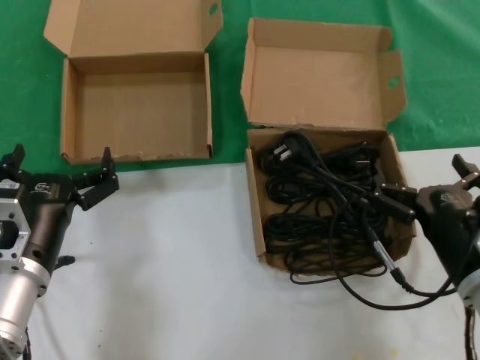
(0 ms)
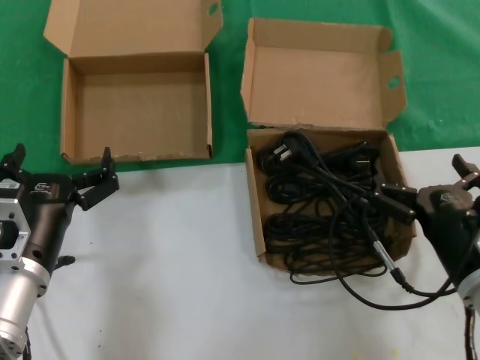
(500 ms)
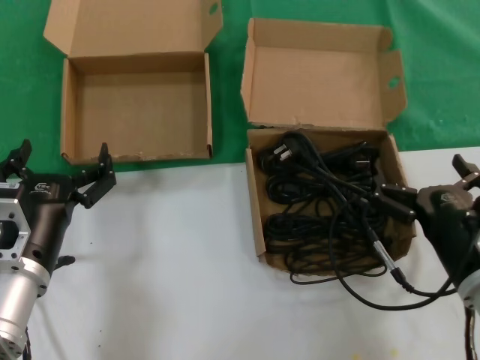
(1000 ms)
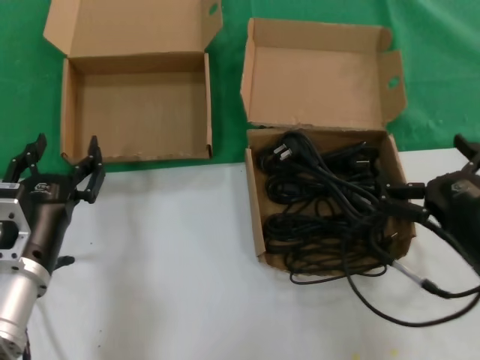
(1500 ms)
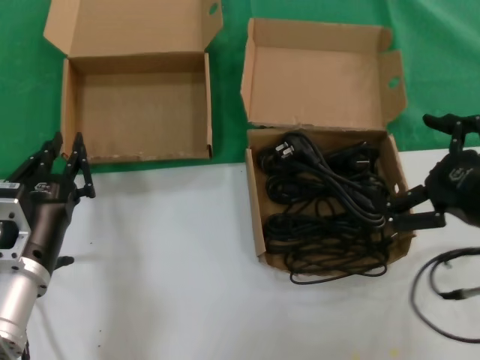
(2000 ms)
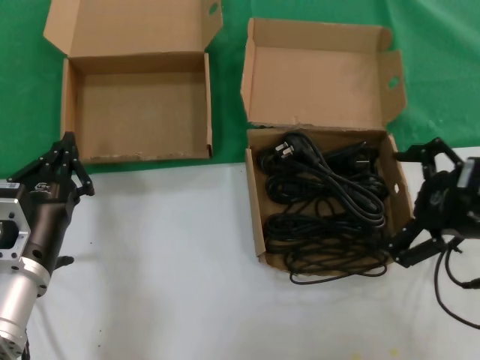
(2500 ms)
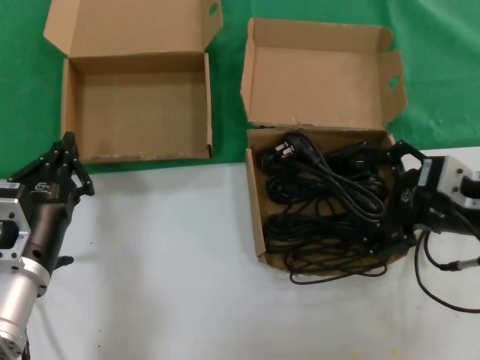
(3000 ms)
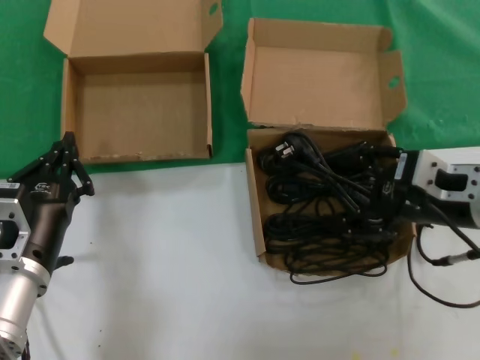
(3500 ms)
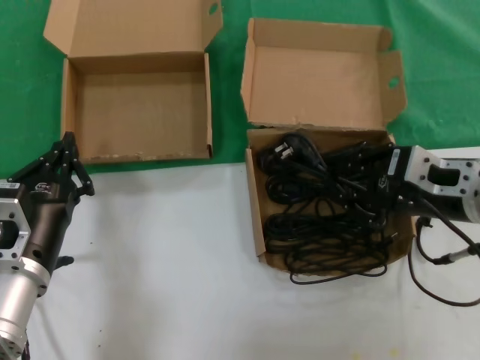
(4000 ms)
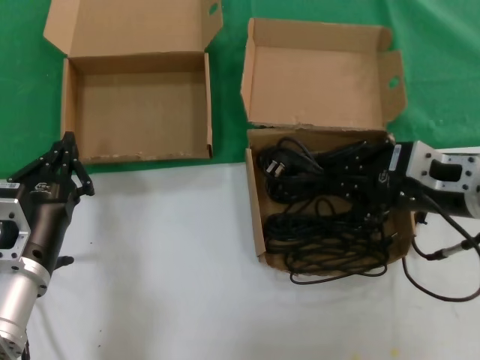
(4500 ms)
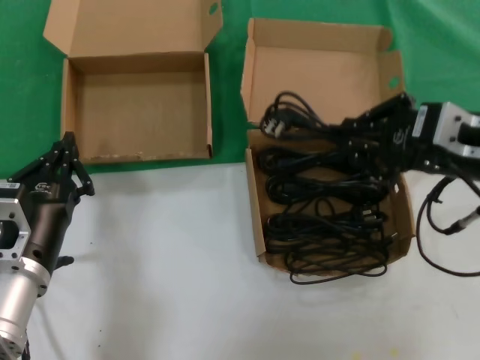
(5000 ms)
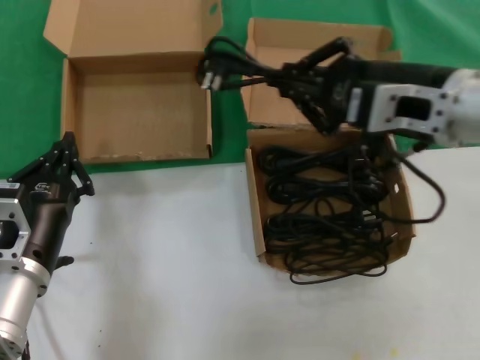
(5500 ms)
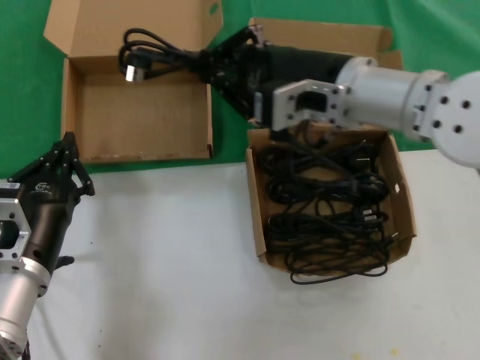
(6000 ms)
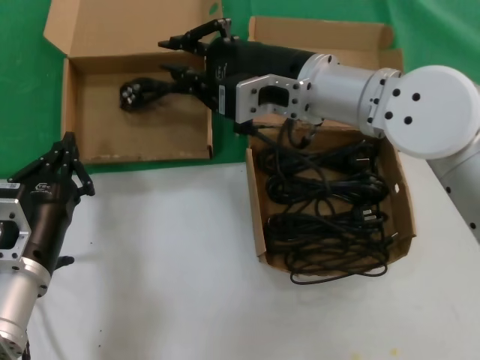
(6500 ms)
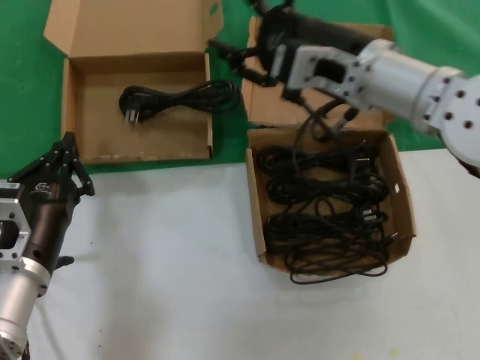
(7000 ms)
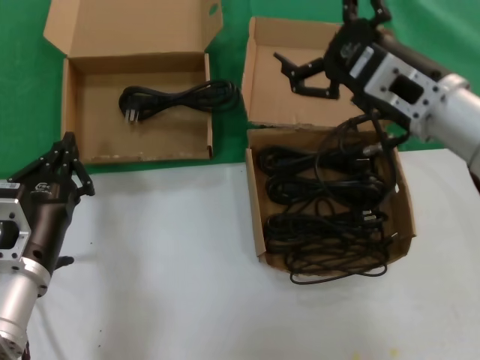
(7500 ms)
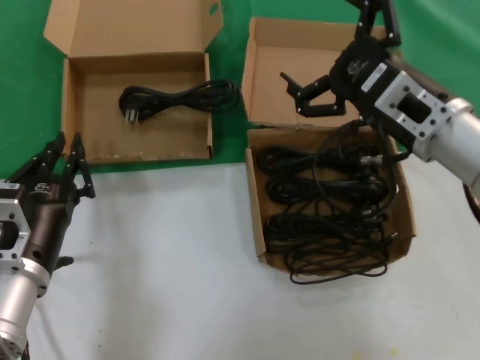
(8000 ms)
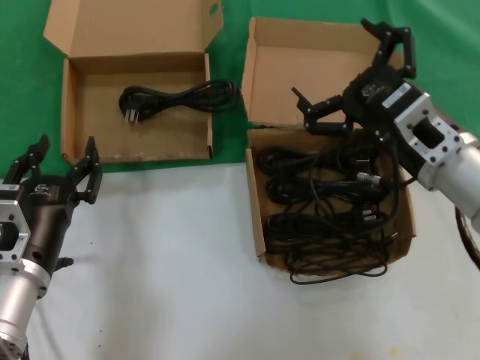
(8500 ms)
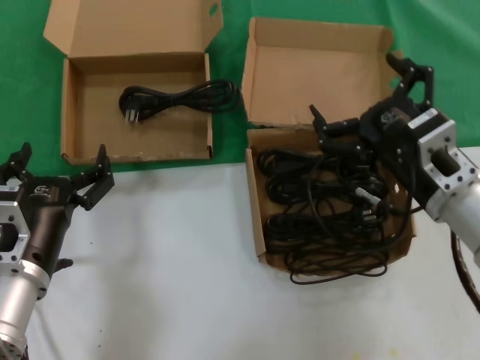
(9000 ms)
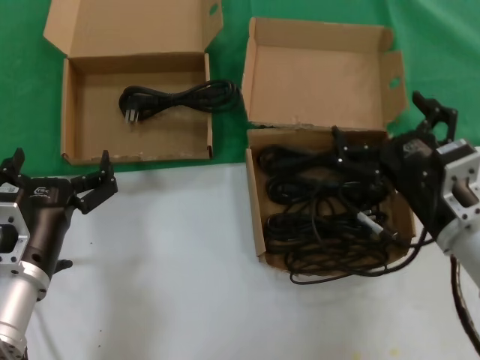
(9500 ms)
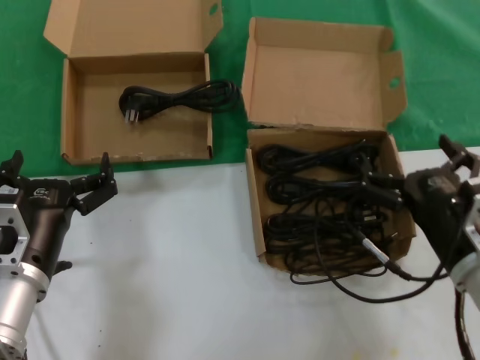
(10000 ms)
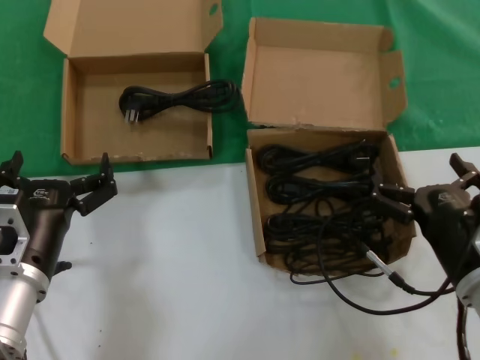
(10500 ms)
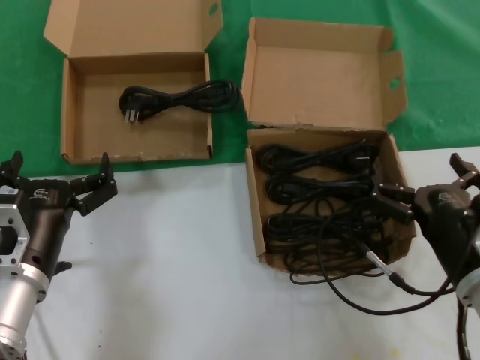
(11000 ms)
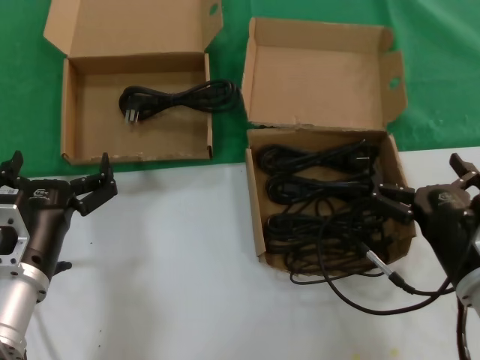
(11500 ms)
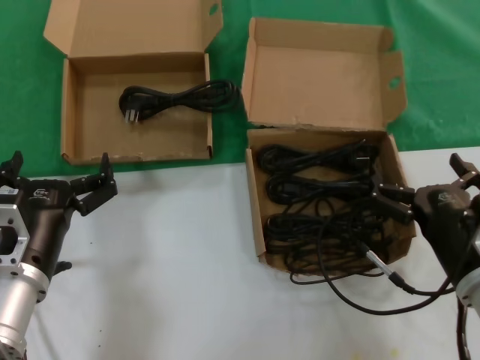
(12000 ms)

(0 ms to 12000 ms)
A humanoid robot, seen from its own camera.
Task of the whole recording: take the parts from the box containing them and put them into an empty box.
Step, 0 ms - 4000 ms: Grasp the data cable.
Step, 4500 ms - 6500 ms: Place the data cable in the another box.
0 ms - 2000 ms: The right hand moves upward and to the right, about 15 cm.
2000 ms - 4000 ms: The right hand travels forward by about 10 cm.
4000 ms - 6000 ms: The right hand travels to the left and upward by about 15 cm.
6000 ms - 8000 ms: The right hand shifts approximately 10 cm to the right and downward.
8000 ms - 10000 ms: The right hand heads downward and backward, covering about 15 cm.
10000 ms - 12000 ms: The hands move only a little.

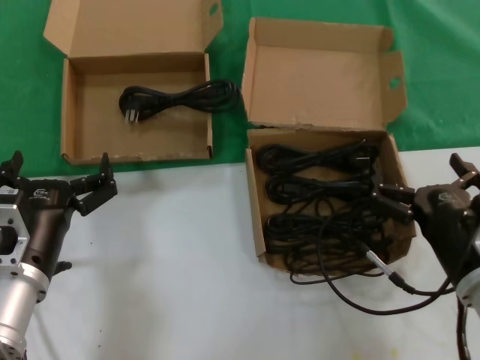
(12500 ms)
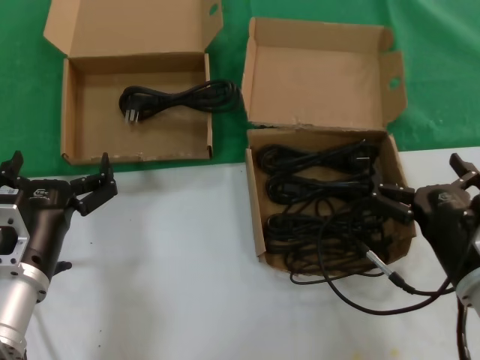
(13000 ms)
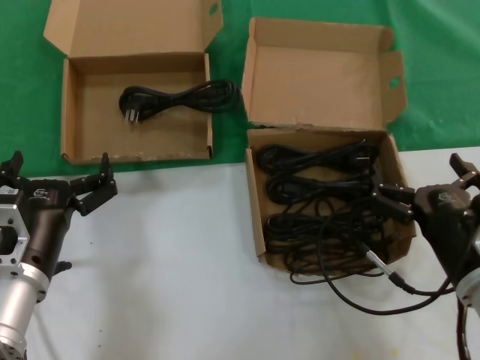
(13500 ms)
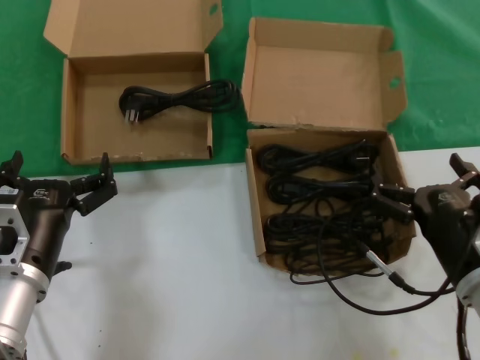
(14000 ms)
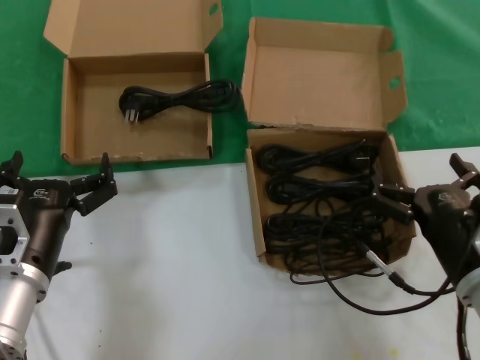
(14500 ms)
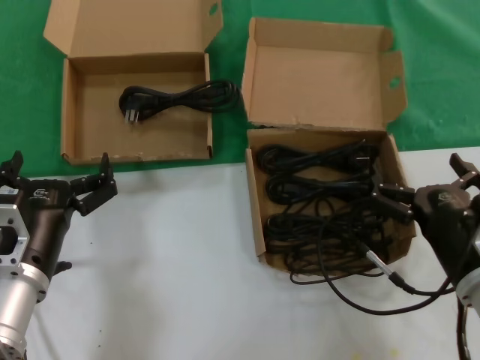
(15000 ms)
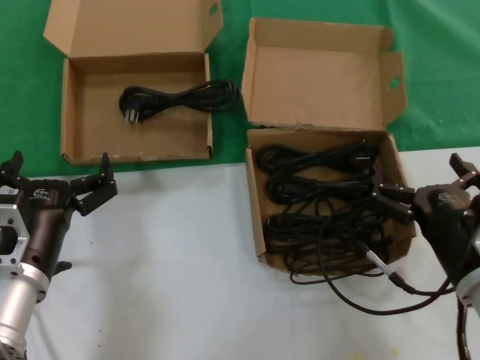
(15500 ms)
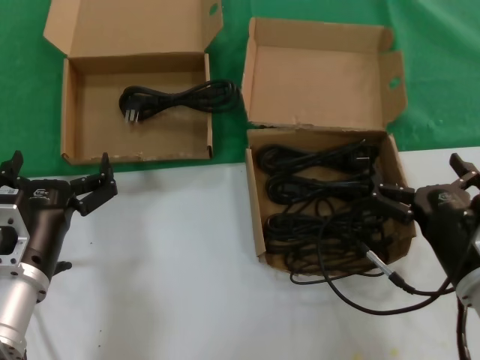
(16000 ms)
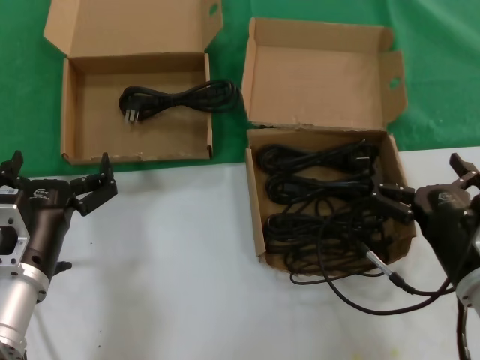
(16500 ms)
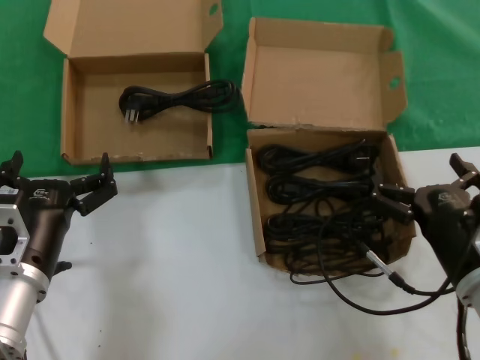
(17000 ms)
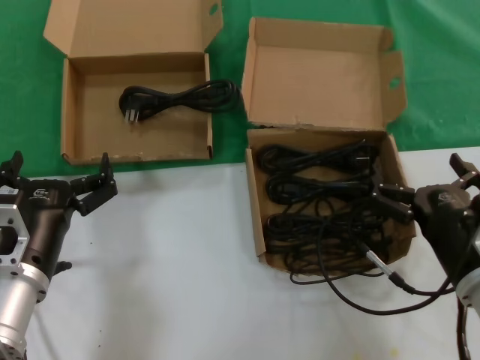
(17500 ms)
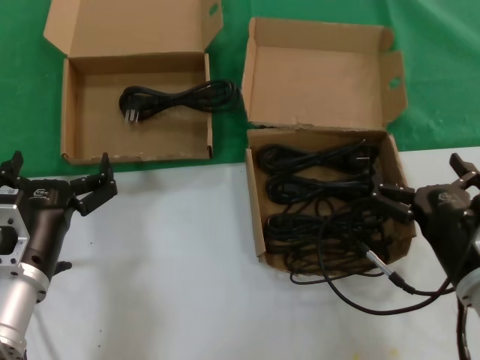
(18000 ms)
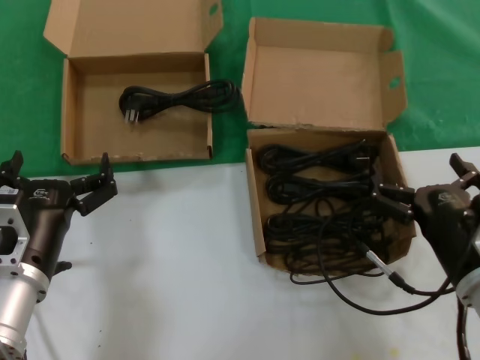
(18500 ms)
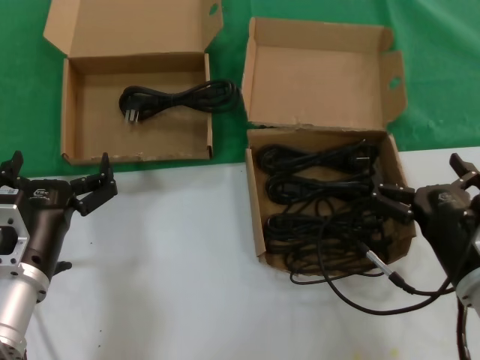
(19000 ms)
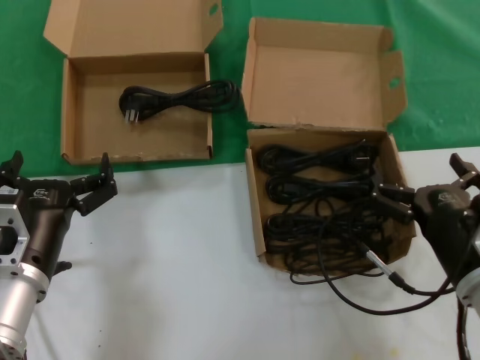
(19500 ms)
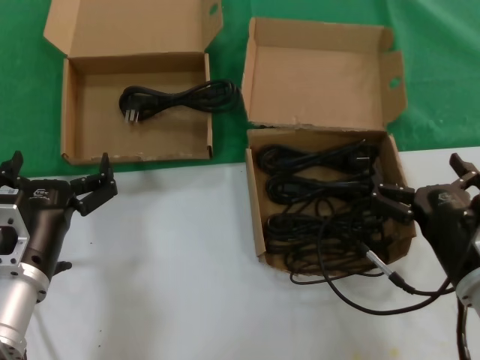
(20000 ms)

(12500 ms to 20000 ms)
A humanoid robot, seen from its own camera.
Task of the whole recording: take the parts from the box containing them and put them into an empty box.
12500 ms - 20000 ms: Neither hand changes place.

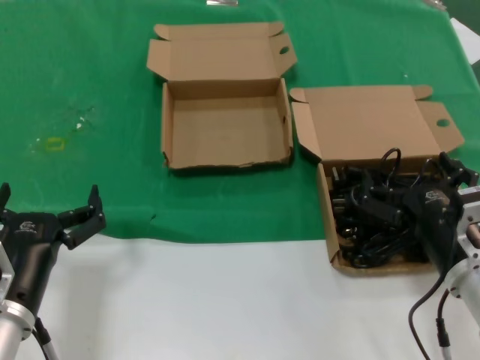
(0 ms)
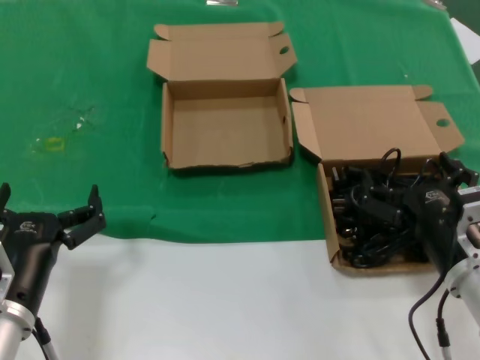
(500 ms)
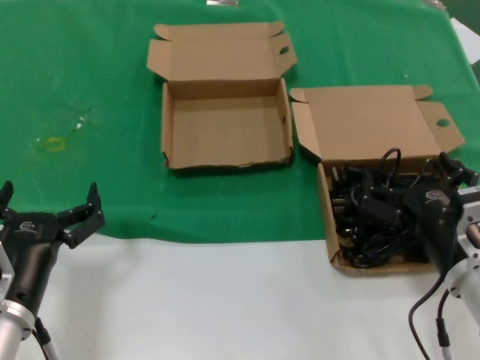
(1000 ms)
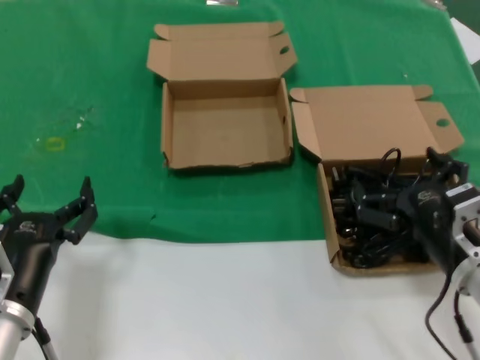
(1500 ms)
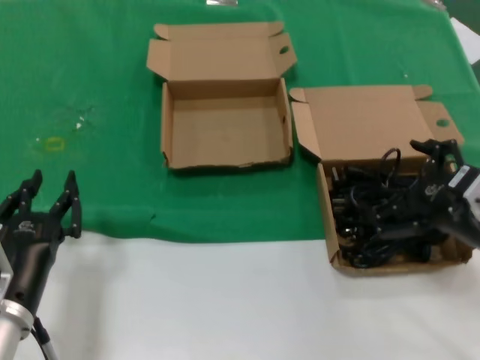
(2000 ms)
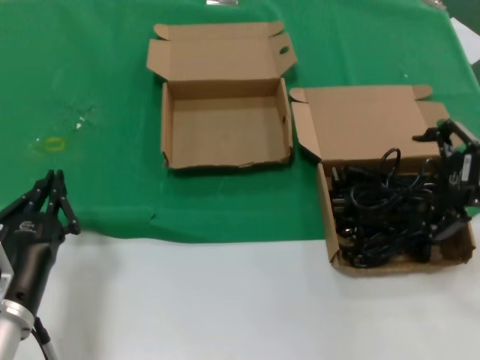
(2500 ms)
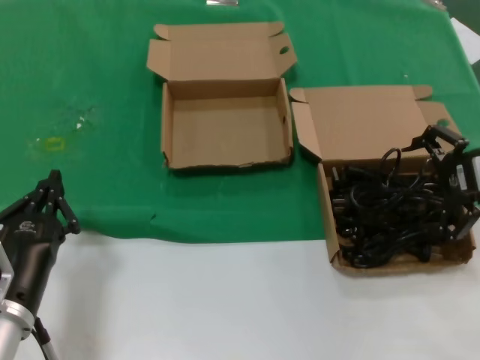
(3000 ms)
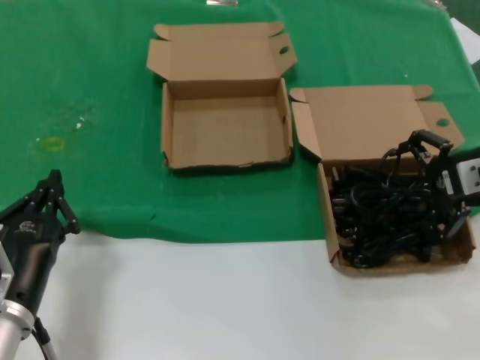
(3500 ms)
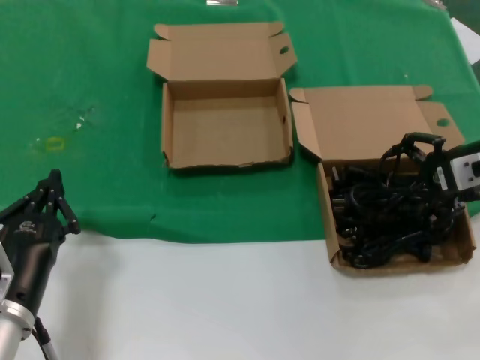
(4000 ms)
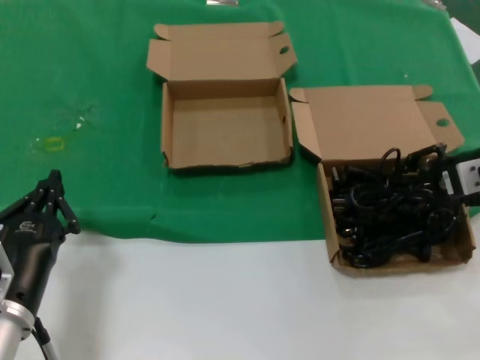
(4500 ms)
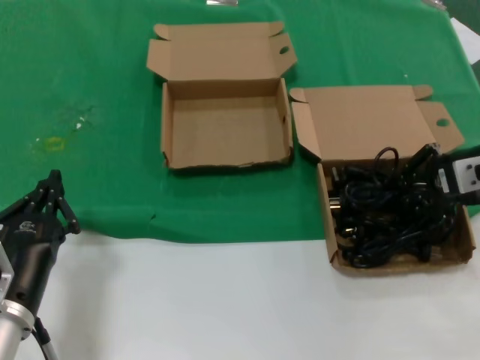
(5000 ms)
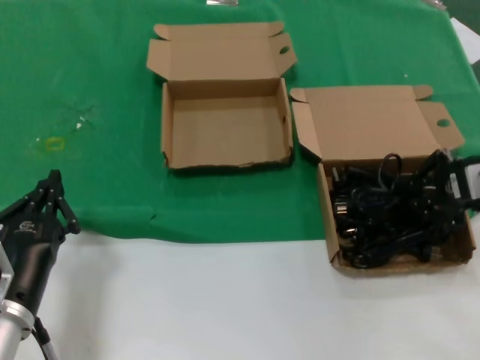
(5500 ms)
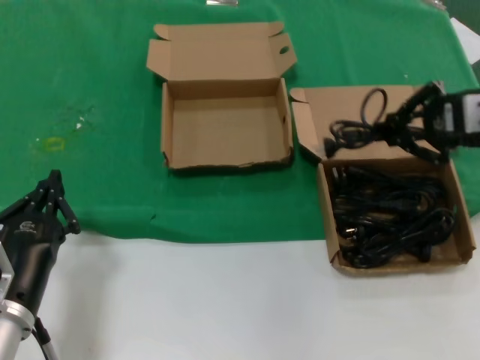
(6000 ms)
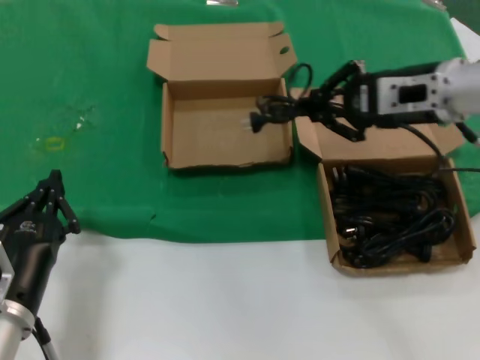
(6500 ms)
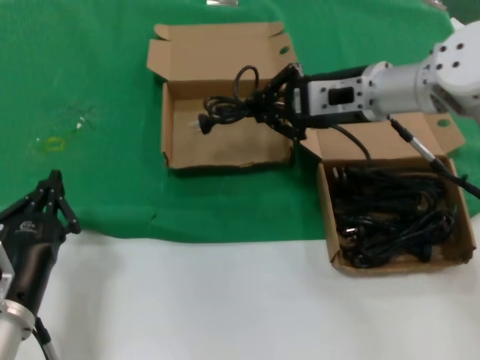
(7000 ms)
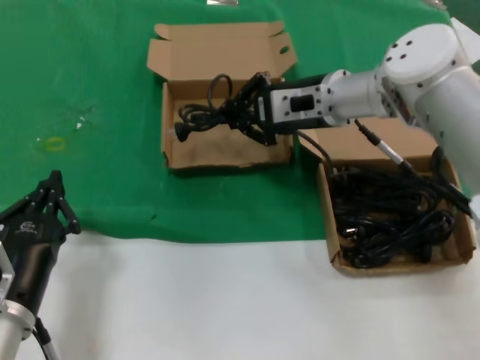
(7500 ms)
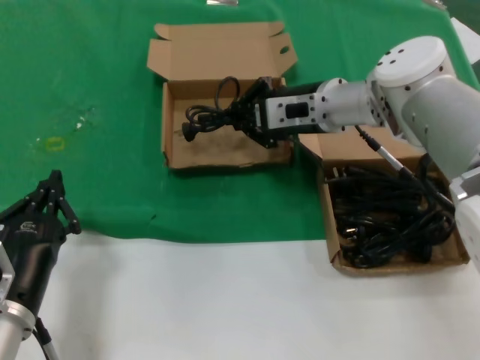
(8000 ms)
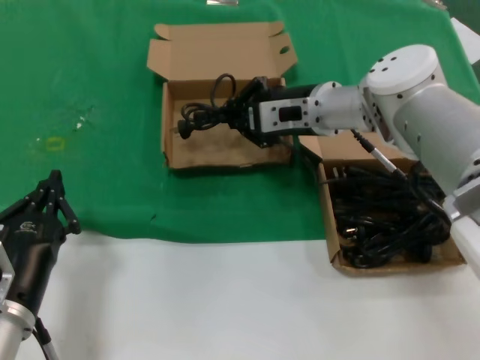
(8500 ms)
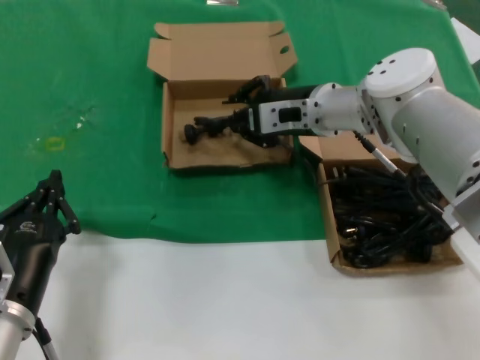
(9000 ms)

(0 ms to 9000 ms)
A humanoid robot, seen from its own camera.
Task of the whole recording: take the parts from the box containing them and put them into an empty box.
Step, 0 ms - 5000 ms: Grasp the data cable.
0 ms - 2000 ms: The right hand is displaced upward and to the right by roughly 10 cm.
2000 ms - 4500 ms: The right hand goes about 15 cm forward and upward.
4500 ms - 7000 ms: The right hand is displaced to the left by about 15 cm.
7000 ms - 9000 ms: The right hand goes about 10 cm to the left and downward.
